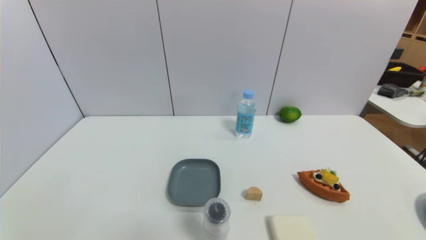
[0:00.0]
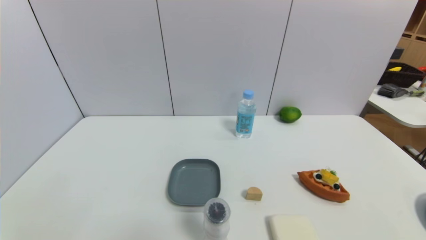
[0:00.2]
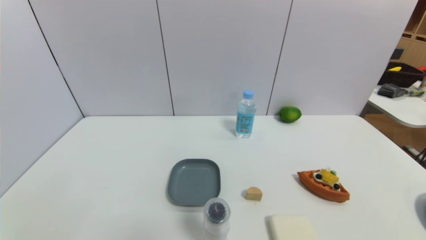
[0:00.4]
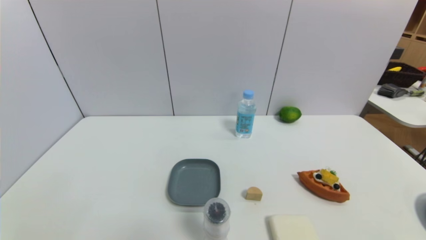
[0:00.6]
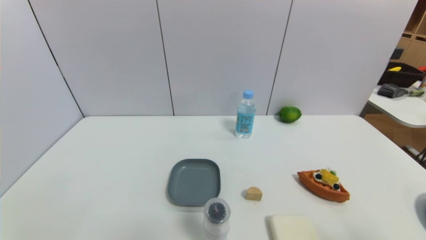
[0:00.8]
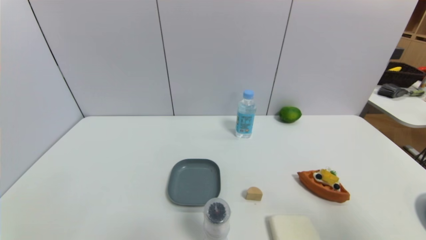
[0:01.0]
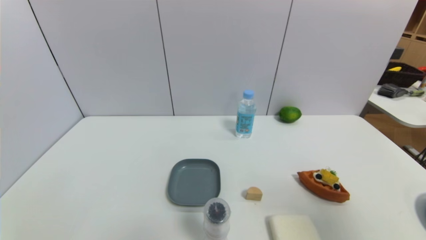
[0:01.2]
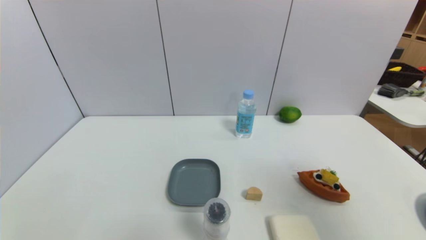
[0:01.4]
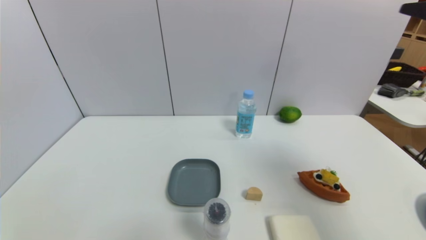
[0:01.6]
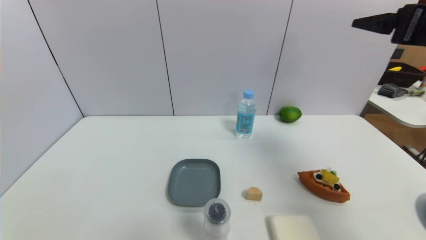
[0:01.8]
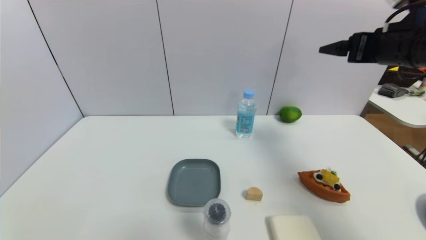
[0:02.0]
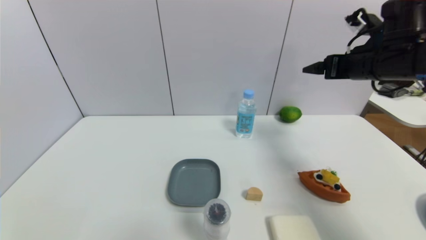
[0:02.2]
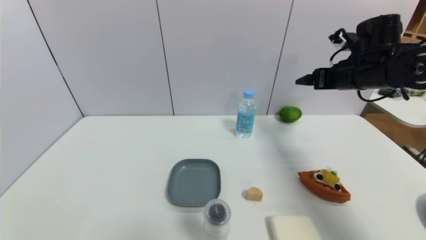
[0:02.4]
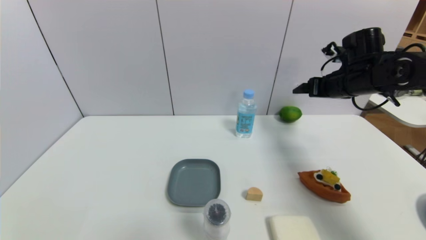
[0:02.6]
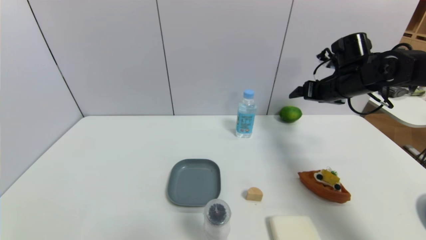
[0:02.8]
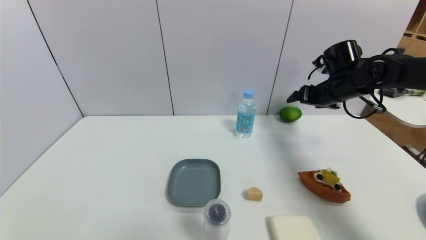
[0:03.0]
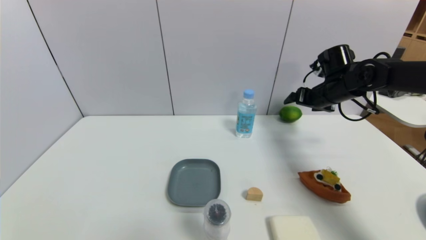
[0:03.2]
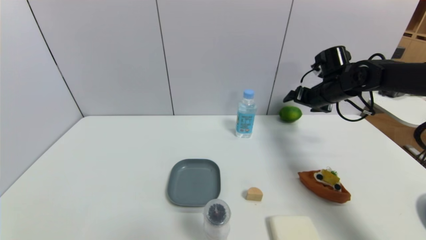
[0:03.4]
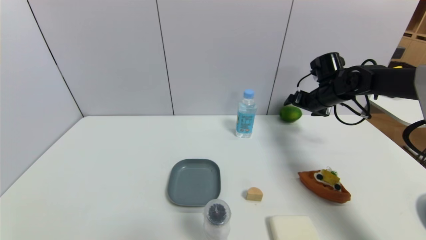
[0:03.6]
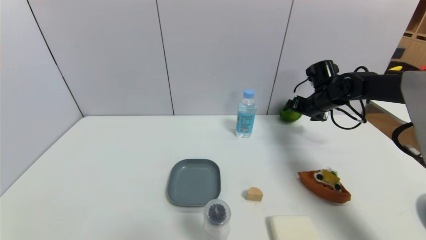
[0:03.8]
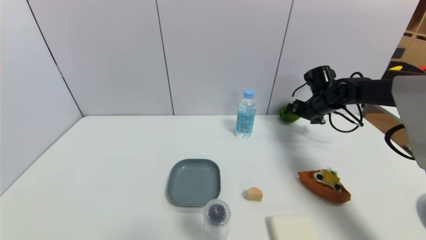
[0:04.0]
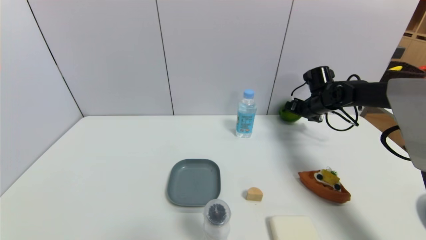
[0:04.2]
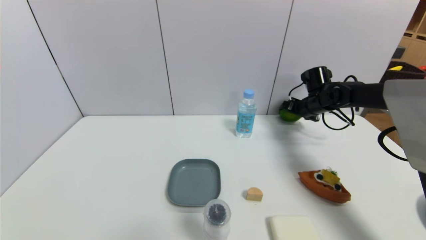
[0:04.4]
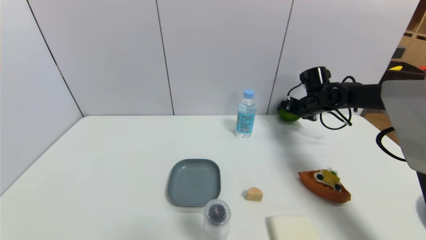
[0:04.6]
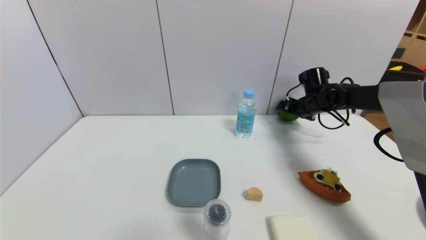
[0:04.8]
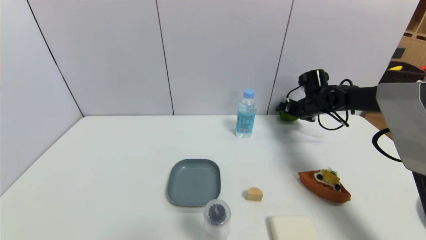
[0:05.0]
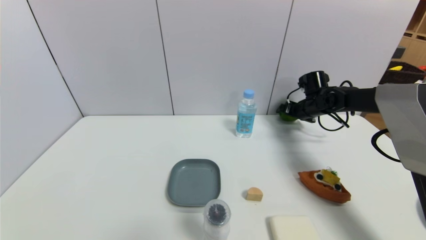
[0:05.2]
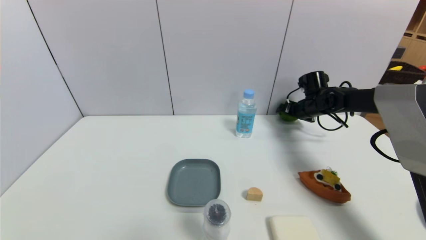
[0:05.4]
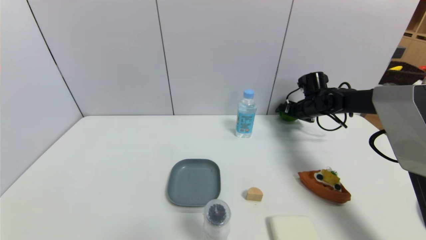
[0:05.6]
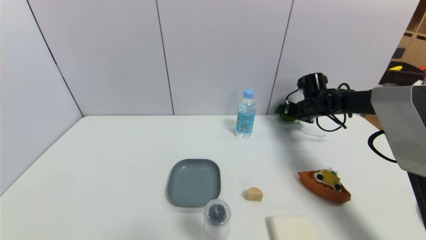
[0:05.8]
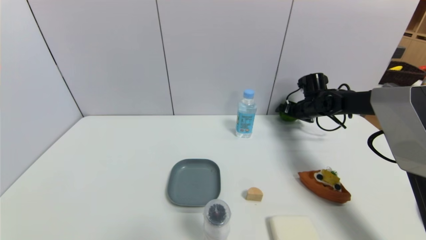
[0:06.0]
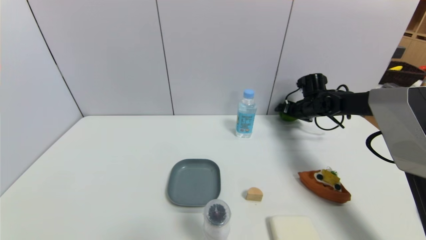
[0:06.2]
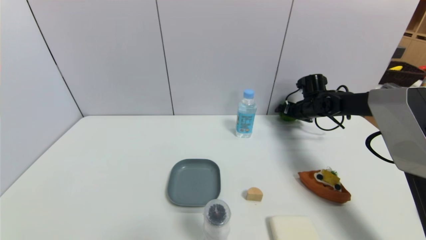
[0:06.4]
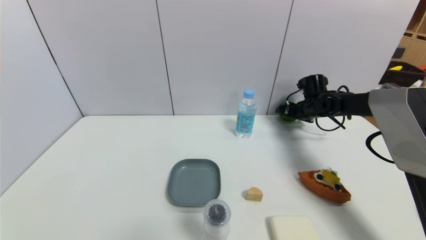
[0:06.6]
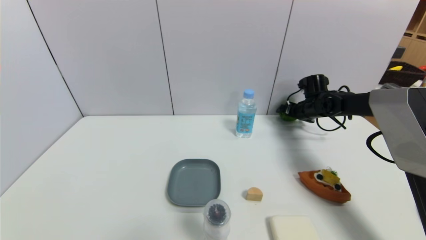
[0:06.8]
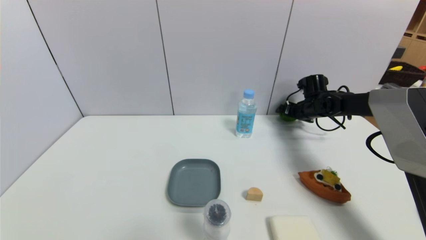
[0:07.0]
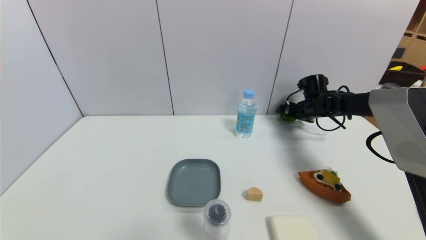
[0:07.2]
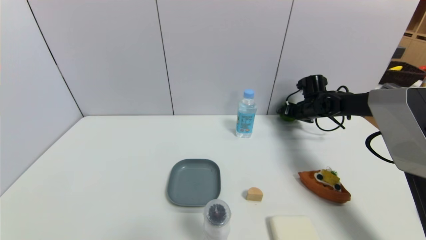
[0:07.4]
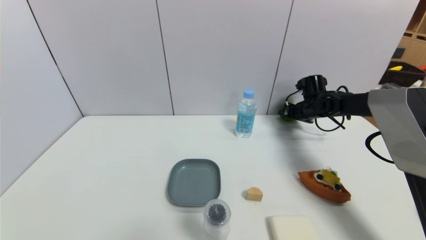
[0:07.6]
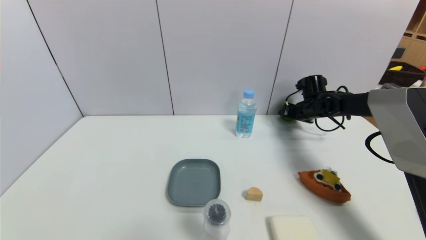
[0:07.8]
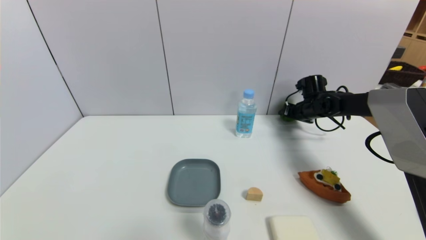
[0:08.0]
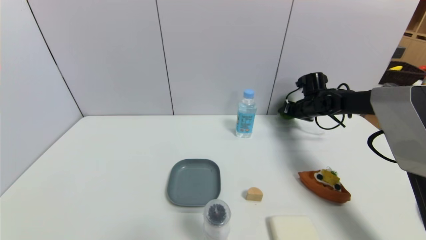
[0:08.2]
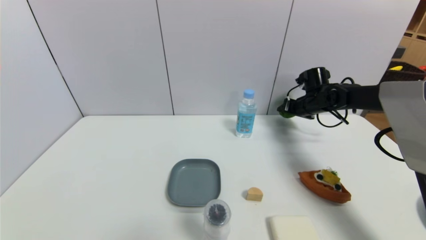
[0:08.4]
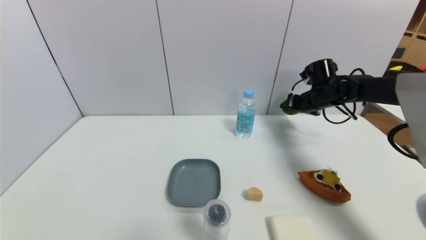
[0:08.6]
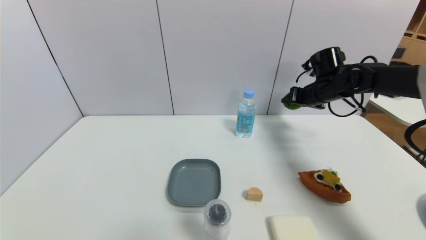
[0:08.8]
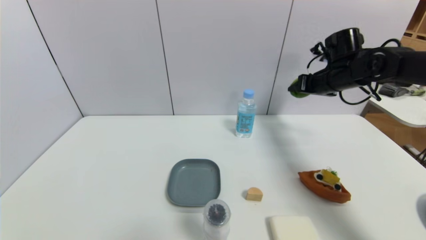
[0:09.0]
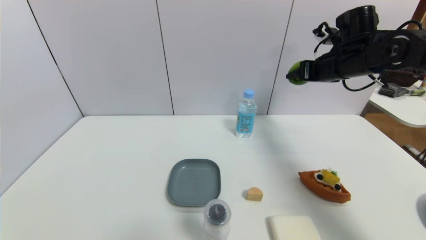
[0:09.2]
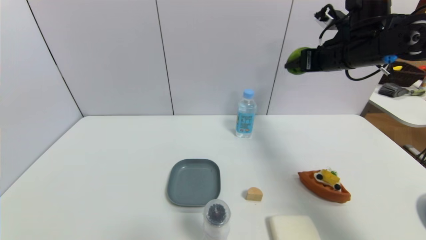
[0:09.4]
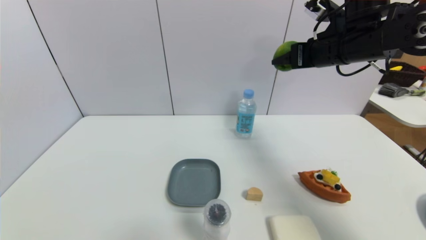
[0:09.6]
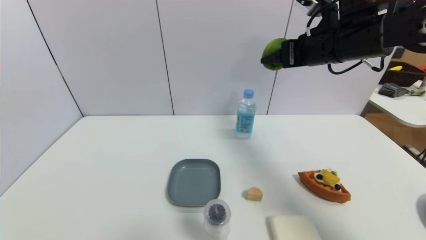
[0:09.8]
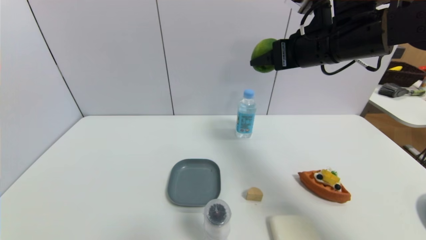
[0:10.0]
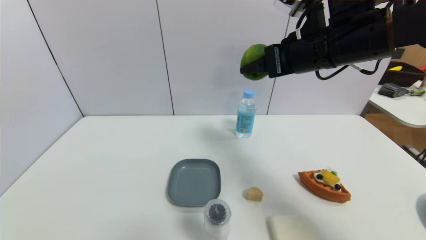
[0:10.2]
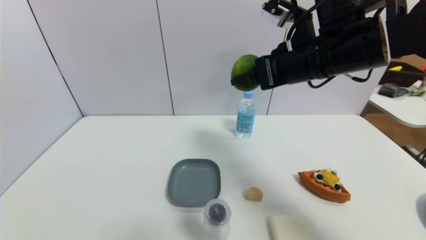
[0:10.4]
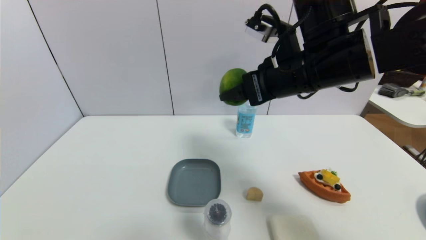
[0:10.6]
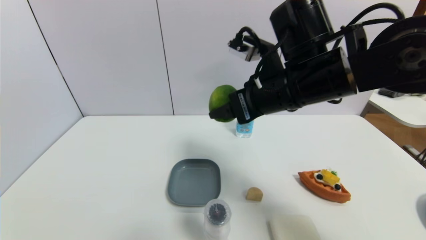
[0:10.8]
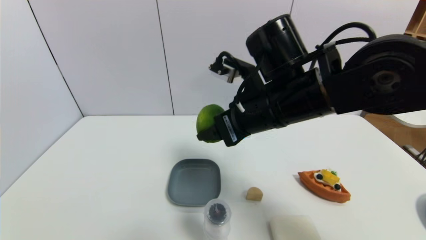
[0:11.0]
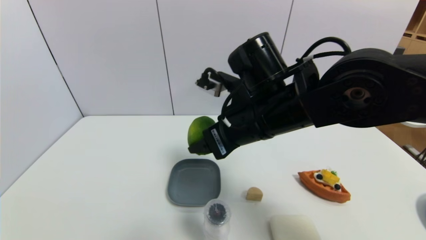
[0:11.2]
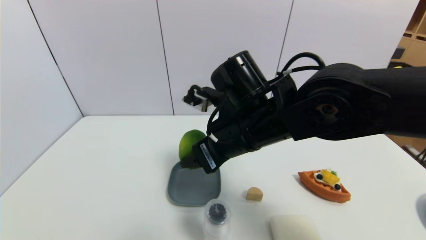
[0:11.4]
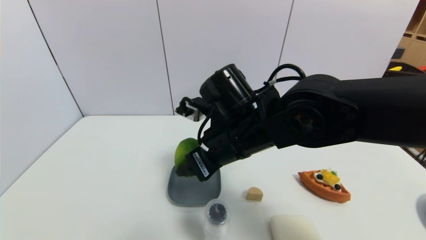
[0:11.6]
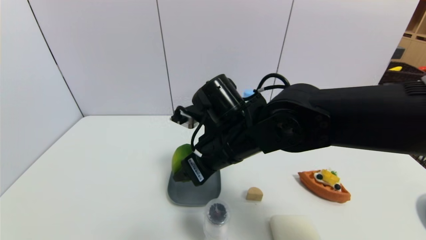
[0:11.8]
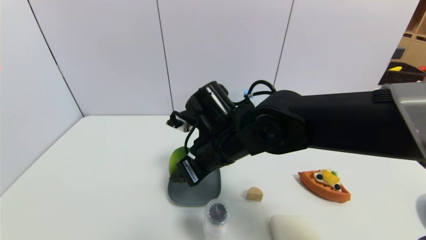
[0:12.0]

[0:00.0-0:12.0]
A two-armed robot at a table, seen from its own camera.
Task of the whole recording: use a gripper to pick the target object and place on the dish.
Step, 0:00.0 to 0:07.8: Grasp the green lemon with the right gripper.
0:00.0 to 0:01.6: The right gripper moves upward and forward, about 35 cm.
0:01.6 to 0:03.0: The right gripper heads forward and downward, covering about 30 cm.
0:03.0 to 0:04.4: The right gripper goes about 10 cm downward and forward.
0:04.4 to 0:06.0: The grippers make only small movements.
0:06.0 to 0:07.6: The right gripper closes up.
0:07.6 to 0:09.0: The right gripper is displaced upward and backward by roughly 15 cm.
0:09.0 to 0:10.4: The right gripper travels backward, to the left and upward by some 20 cm.
0:10.4 to 0:12.0: The right gripper goes about 20 cm downward and to the left.

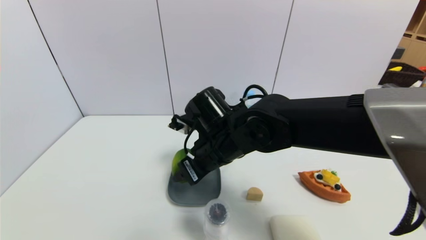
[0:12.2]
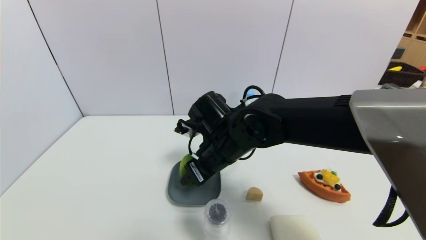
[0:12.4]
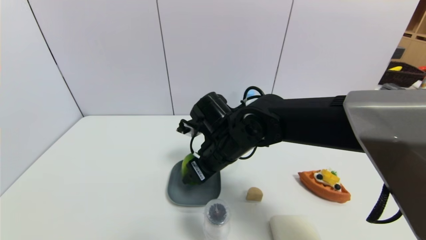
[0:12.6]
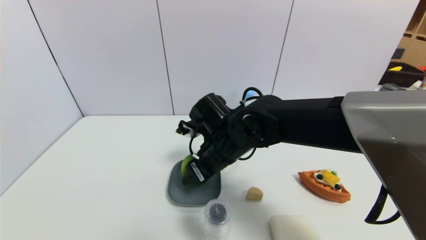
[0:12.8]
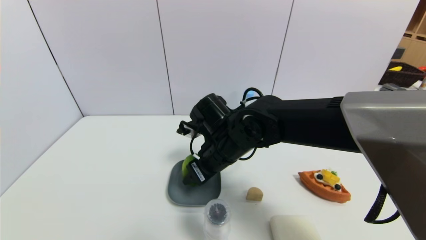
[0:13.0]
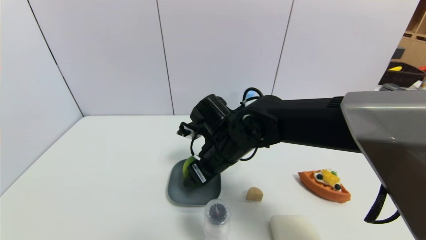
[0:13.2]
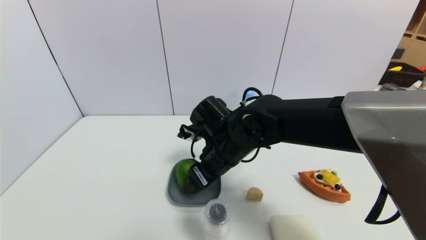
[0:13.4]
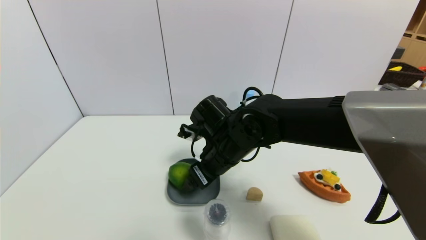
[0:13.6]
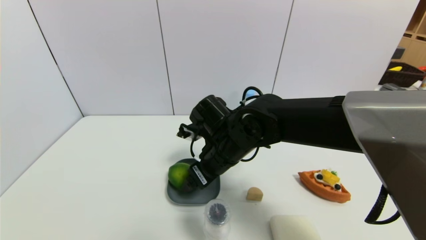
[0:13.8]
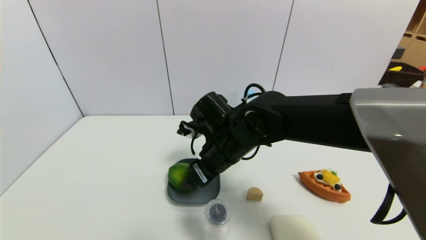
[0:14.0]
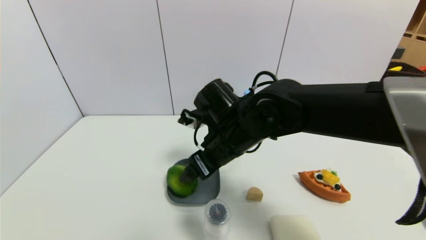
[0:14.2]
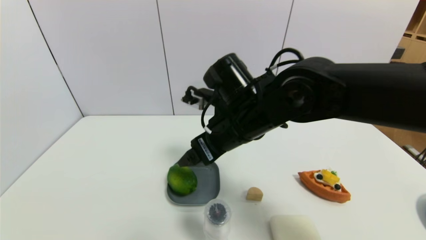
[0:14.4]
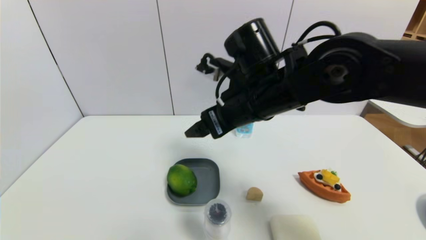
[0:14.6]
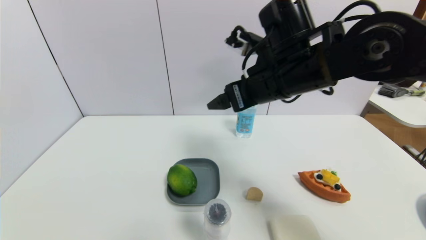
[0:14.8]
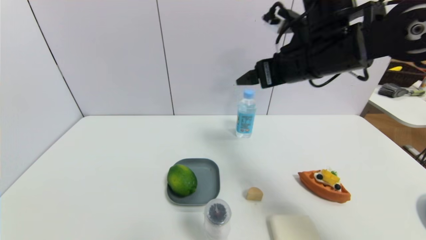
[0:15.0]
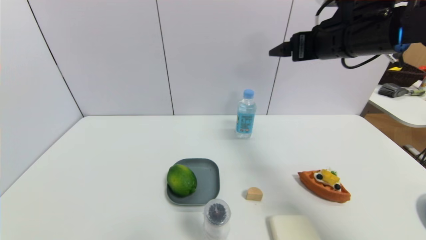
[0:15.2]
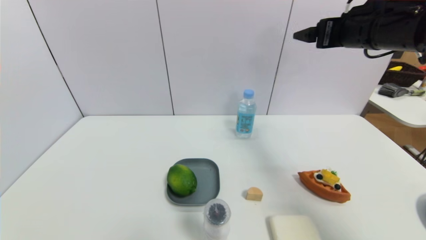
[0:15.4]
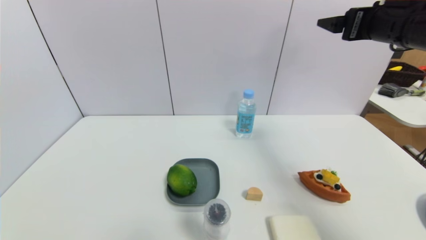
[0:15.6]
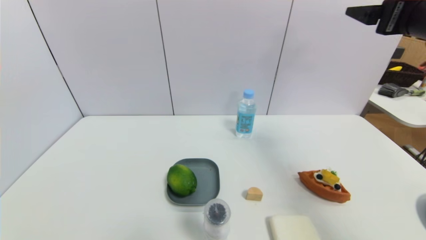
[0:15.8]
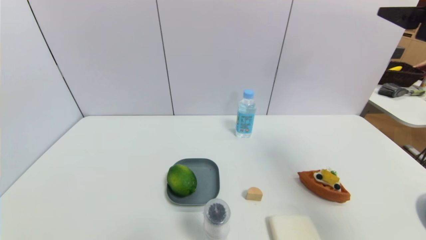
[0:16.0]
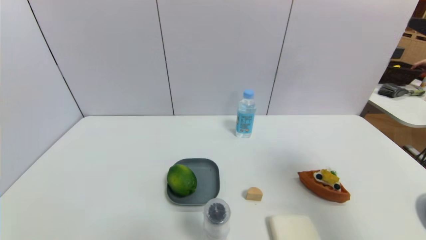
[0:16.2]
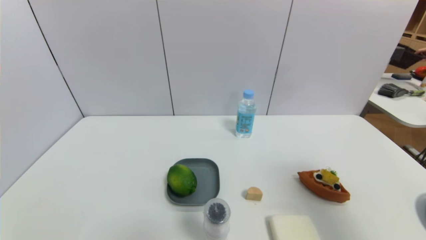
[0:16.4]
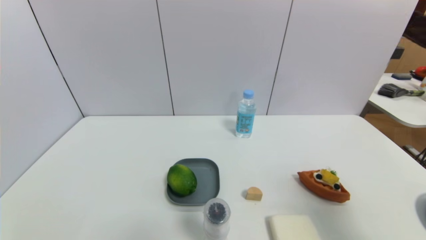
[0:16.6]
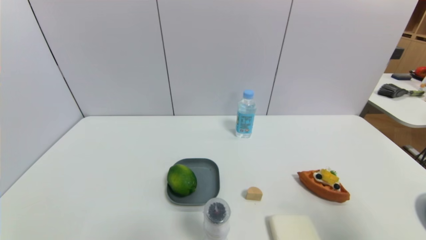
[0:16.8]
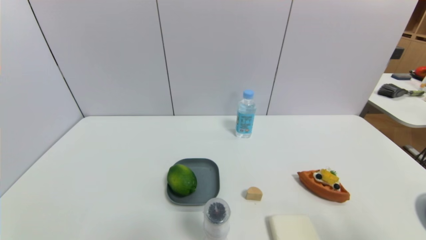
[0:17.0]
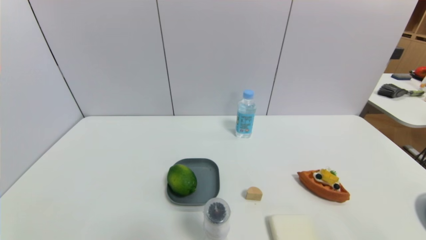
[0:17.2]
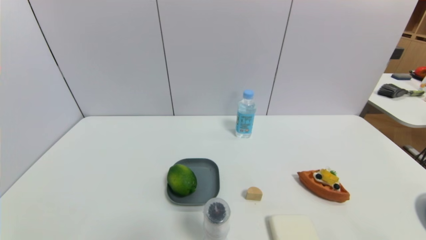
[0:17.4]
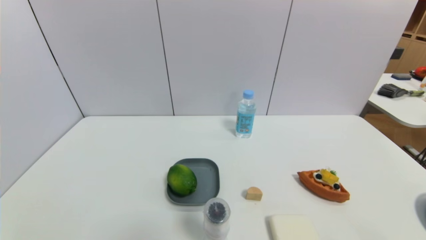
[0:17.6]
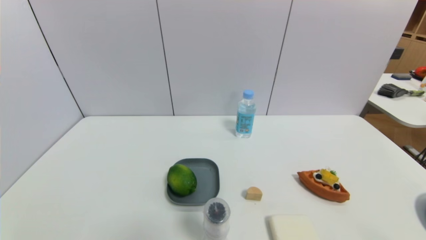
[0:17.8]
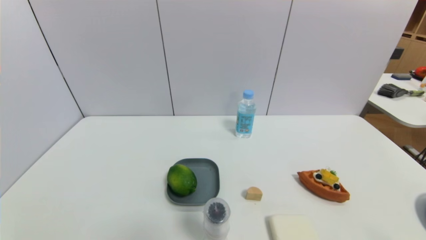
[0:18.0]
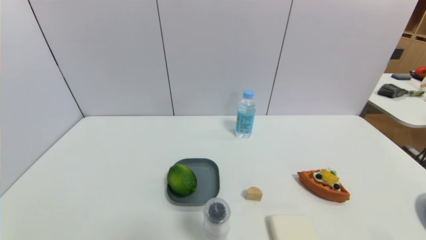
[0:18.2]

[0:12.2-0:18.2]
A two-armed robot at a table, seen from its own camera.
Task of the whole recording: use a gripper to pick the target object and place on the dish.
Step, 0:12.2 to 0:14.4: Place the green lemon on the dish with the right gripper.
0:12.2 to 0:13.8: The right gripper opens.
0:13.8 to 0:15.2: The right gripper is displaced to the right and upward by roughly 25 cm.
0:15.2 to 0:16.6: The right gripper shifts some 25 cm backward and to the right.
0:16.6 to 0:18.2: The right gripper heads downward and backward, covering some 20 cm.
